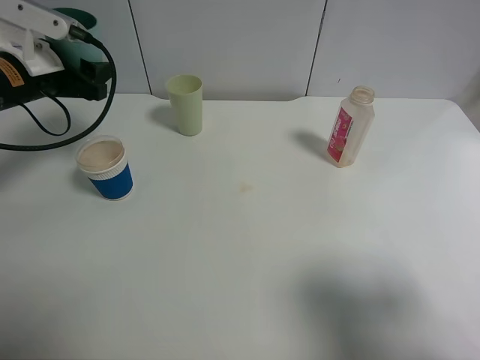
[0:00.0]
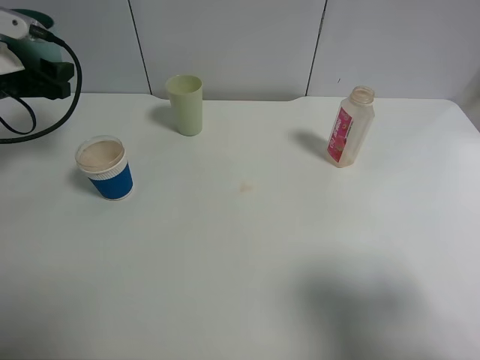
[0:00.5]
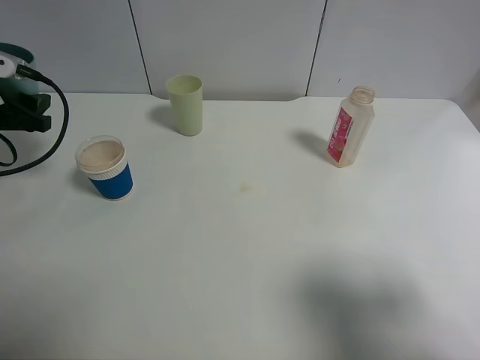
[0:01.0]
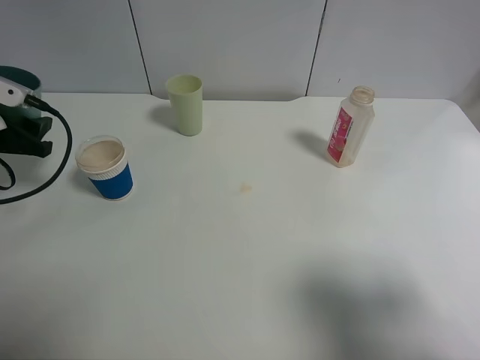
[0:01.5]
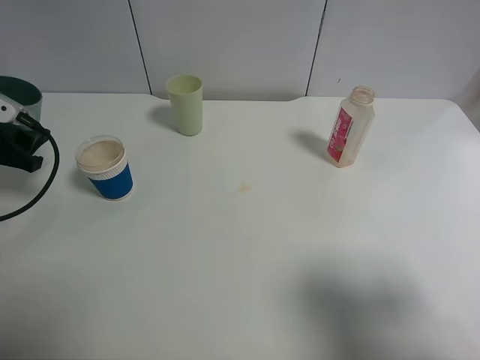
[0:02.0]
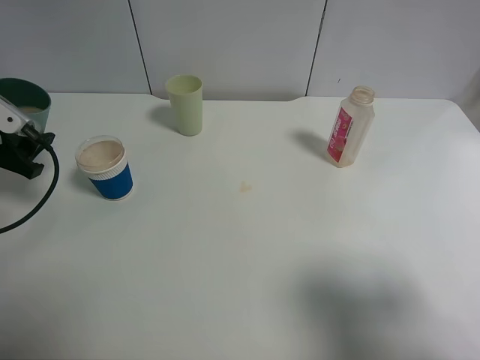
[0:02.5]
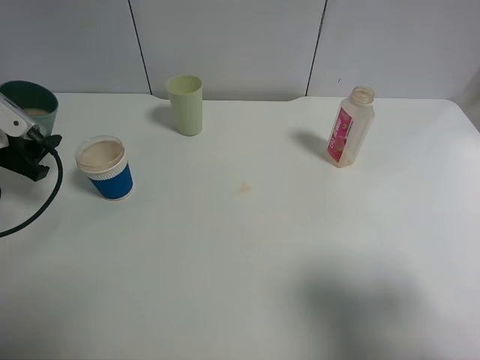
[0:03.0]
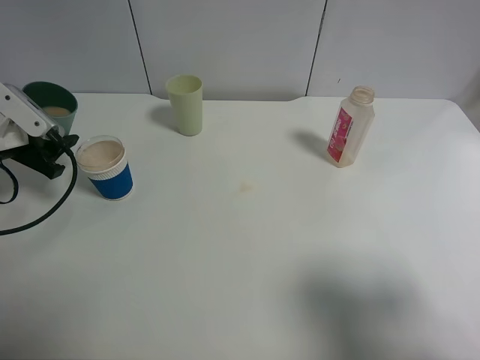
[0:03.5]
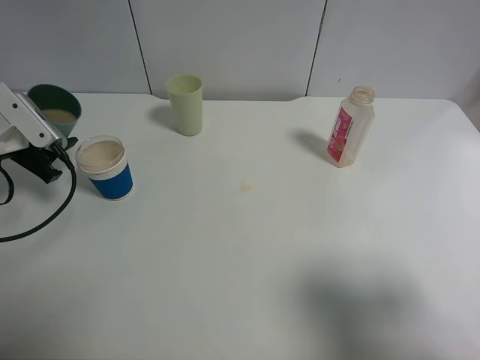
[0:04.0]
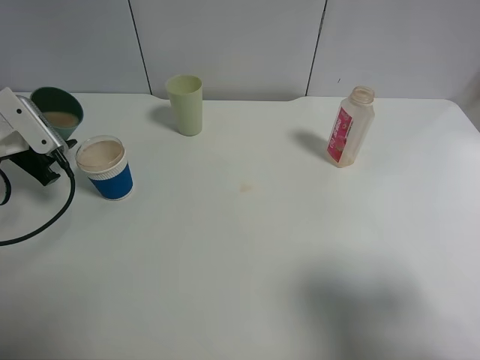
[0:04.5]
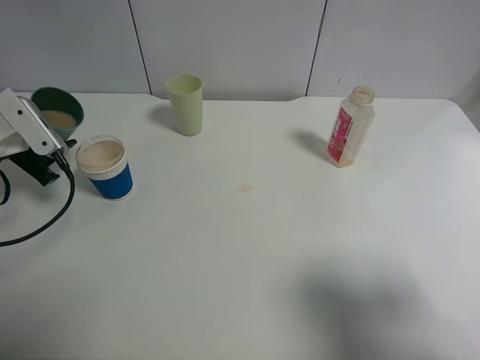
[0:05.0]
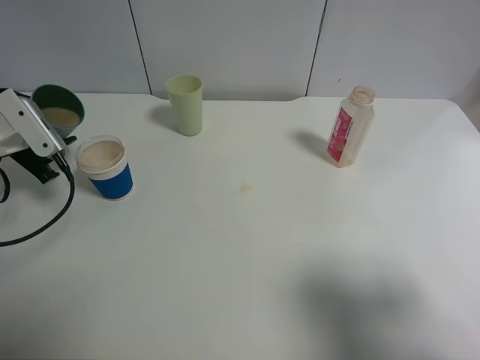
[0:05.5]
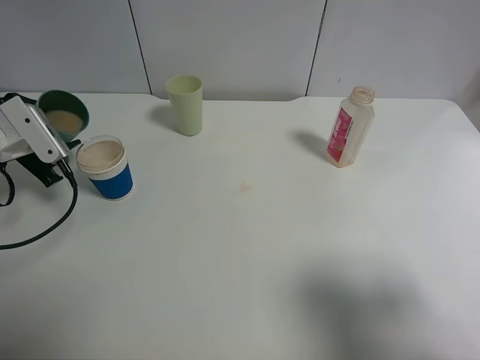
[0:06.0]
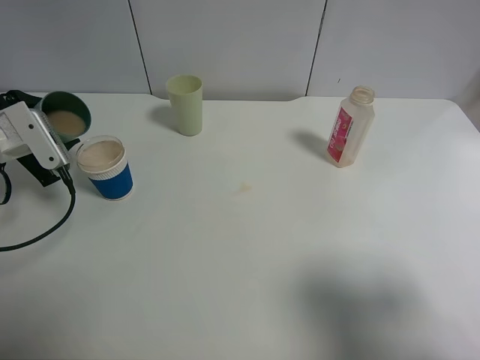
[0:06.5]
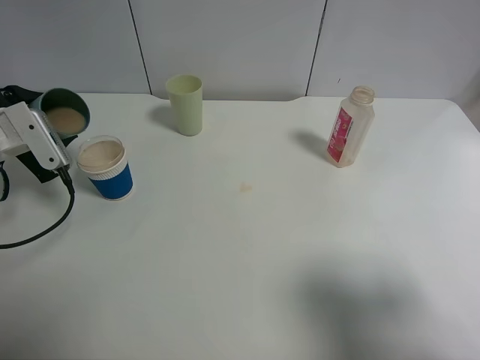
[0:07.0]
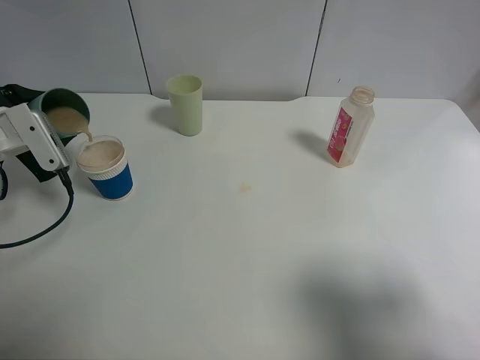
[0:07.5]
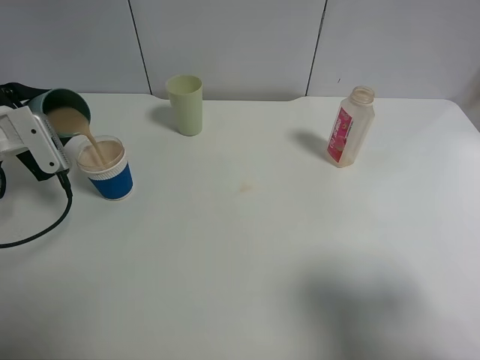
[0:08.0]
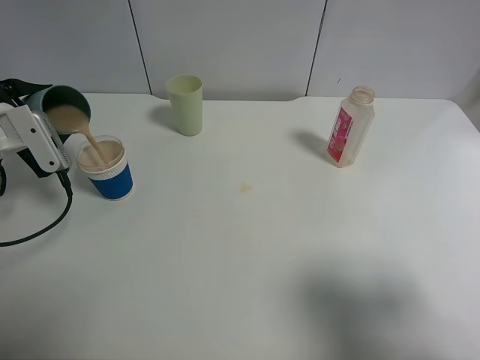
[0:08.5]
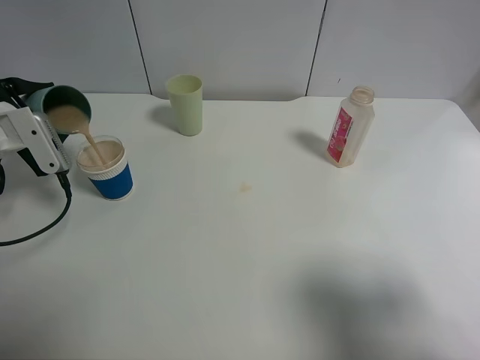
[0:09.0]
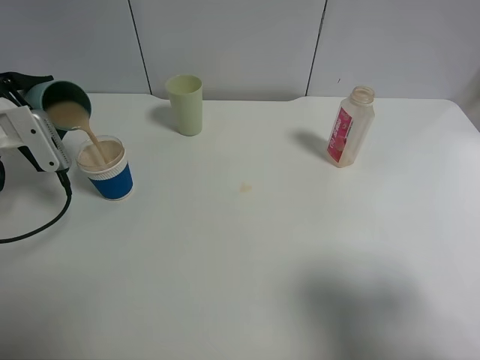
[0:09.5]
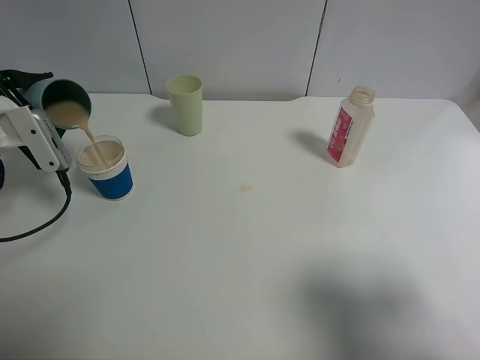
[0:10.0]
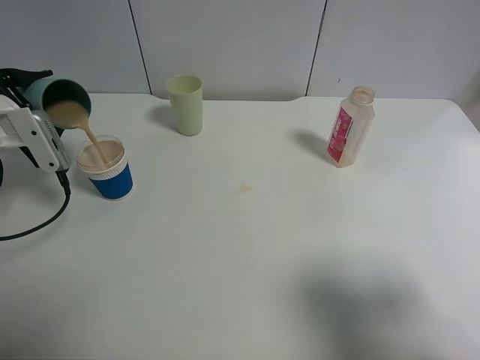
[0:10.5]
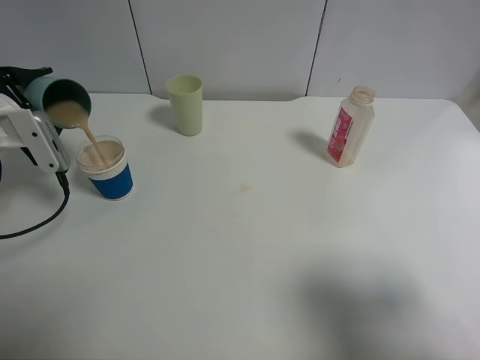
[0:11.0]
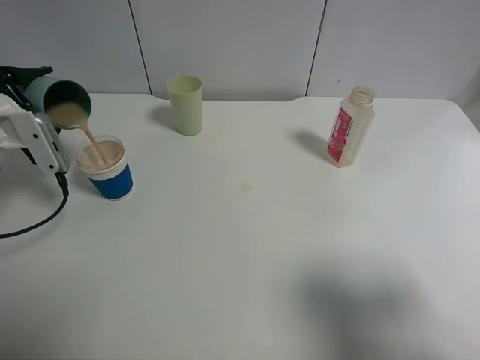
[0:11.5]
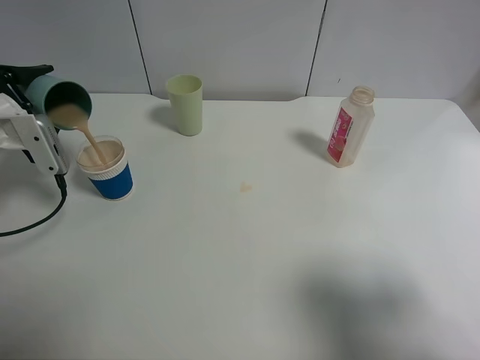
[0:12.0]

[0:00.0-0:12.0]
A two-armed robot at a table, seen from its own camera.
Task of the whole recording: use a clamp to hold the bottle of the drink, pour the beverage into a random cup, then clamp the cup containing the drink and pour the drink into another random cup.
0:00.0 to 0:02.0: The left gripper heads to the left and backward, covering some 10 cm.
0:02.0 to 0:04.0: There are only small adjustments of the grippers.
0:04.0 to 0:06.0: The grippers make only small movements.
0:06.0 to 0:08.0: The grippers make only small movements.
0:08.0 to 0:10.0: The grippers move only a little.
0:10.0 to 0:12.0: The grippers stay close to where they were, moving slightly.

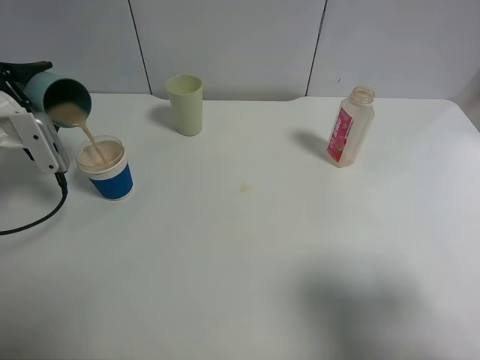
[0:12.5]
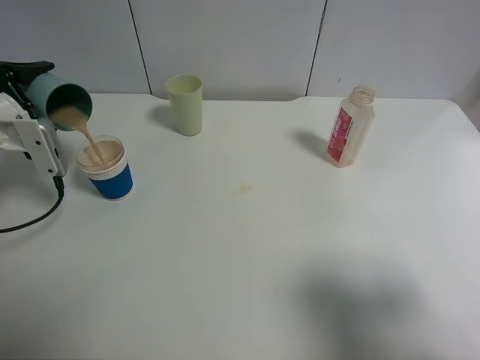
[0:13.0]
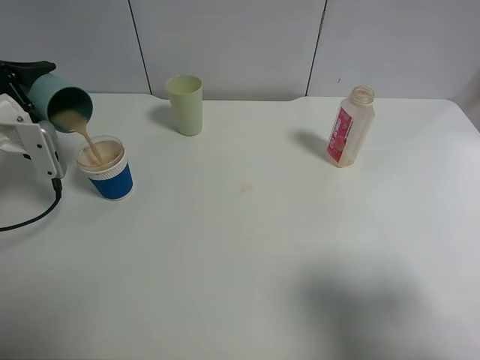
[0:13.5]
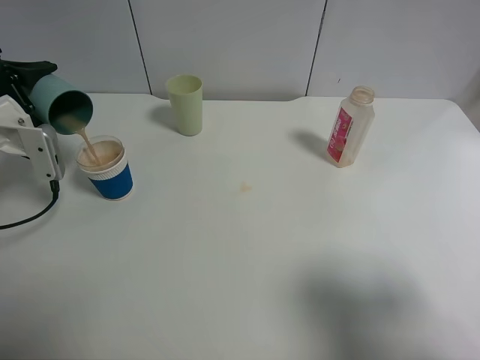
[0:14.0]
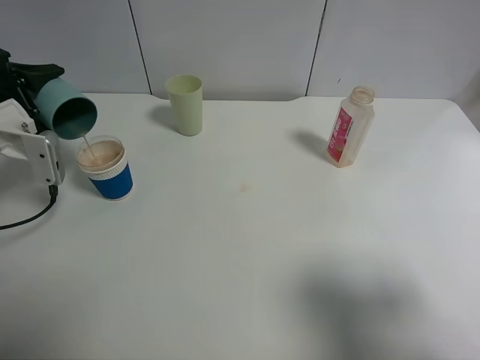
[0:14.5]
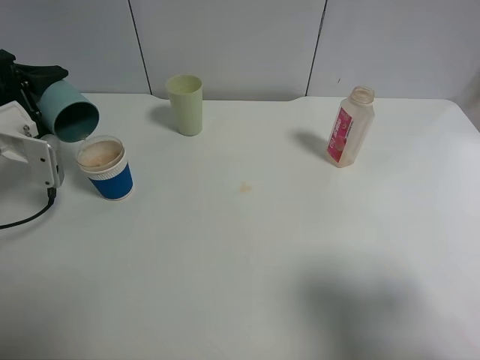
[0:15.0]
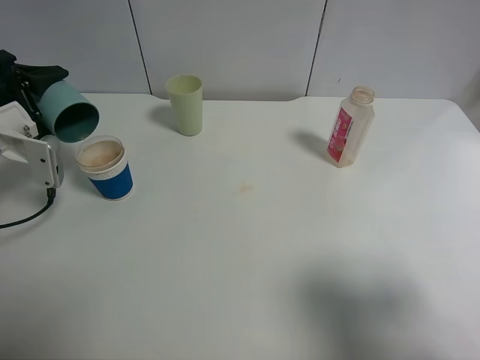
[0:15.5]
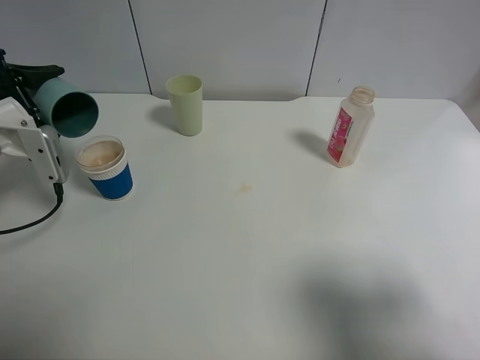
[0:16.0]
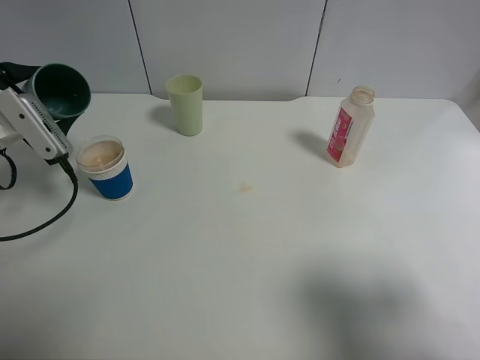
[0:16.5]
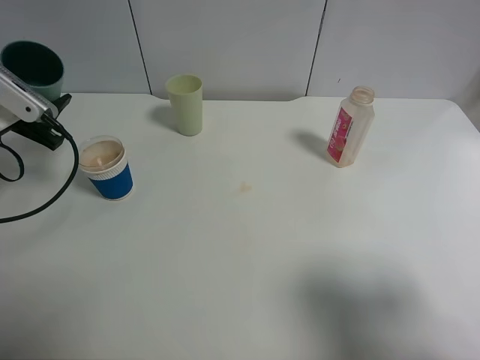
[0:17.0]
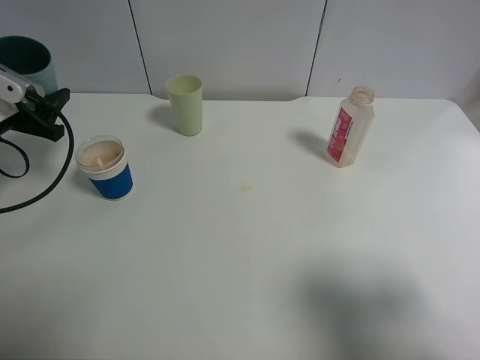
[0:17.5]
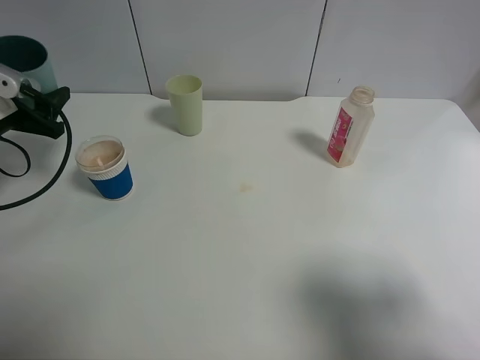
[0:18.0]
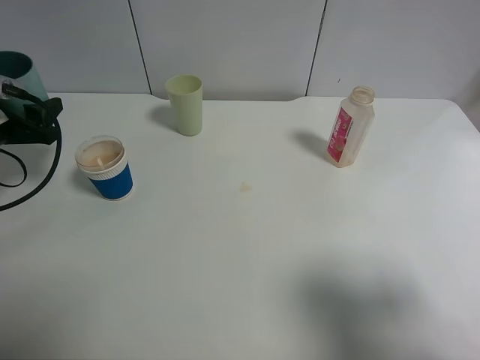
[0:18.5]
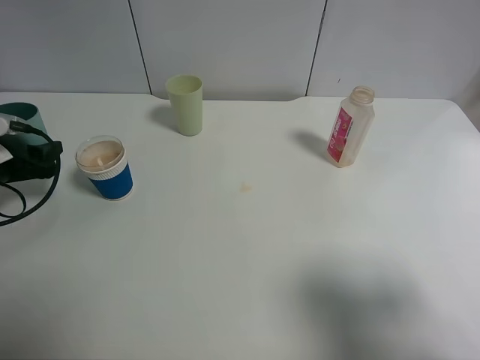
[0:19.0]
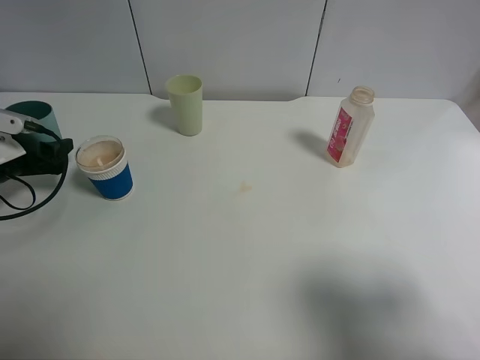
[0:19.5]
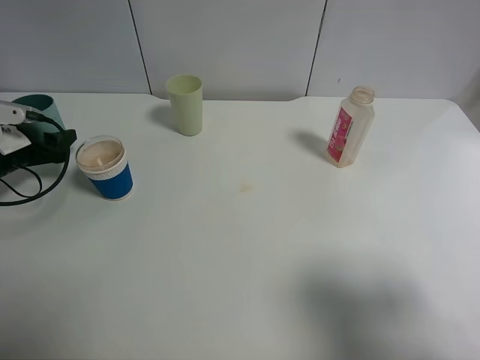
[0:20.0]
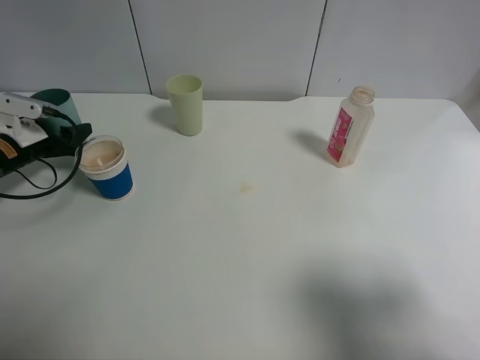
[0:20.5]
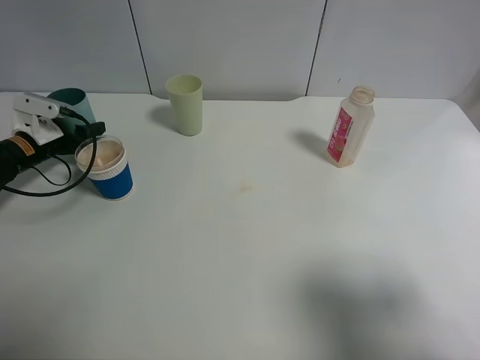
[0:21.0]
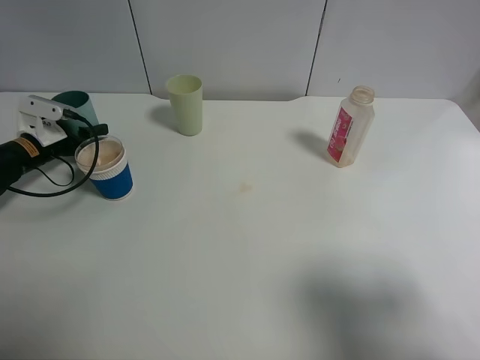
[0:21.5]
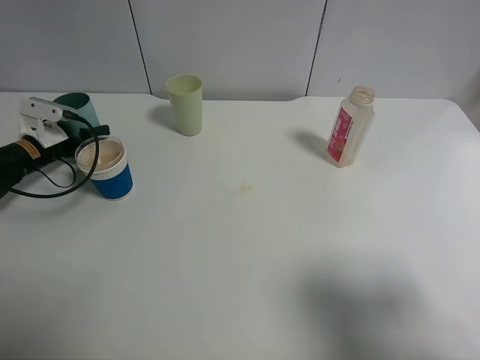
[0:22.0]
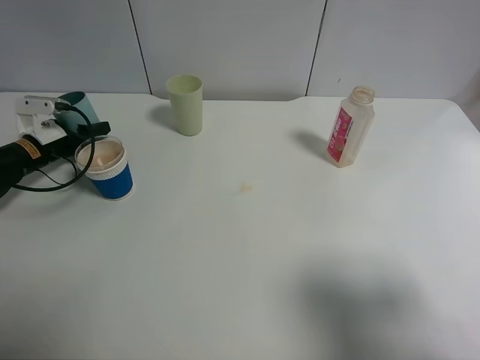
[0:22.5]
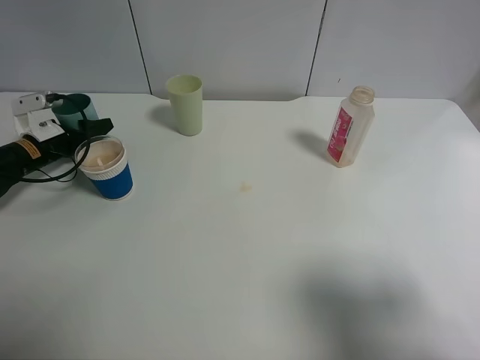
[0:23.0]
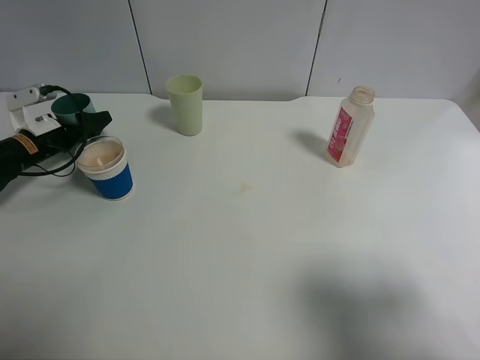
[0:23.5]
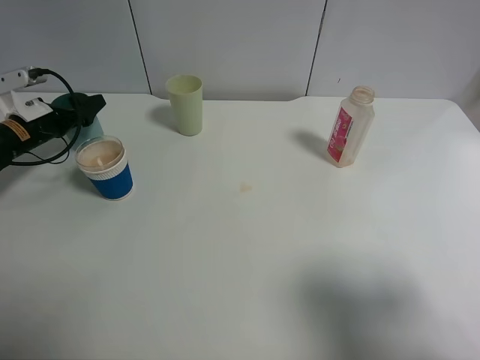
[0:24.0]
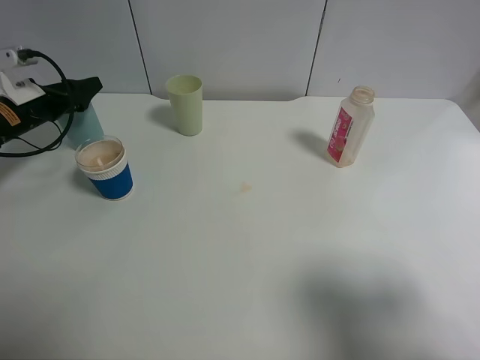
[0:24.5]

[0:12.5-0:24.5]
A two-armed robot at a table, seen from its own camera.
Task of the whole recording: use a clamp to hold the bottle of the drink, pour the beverage into a random cup, then clamp the cup containing the drink and pour the drink into another random cup.
Step, 0:12.5 to 0:16.5: Pour the drink into the paper cup with left gripper.
Step, 0:17.0 to 0:24.5: Place the blue plastic cup on the table with left gripper.
0:12.5 to 0:14.5: The grippers make only small movements.
0:18.5 to 0:20.5: The left gripper moves downward and forward, some 10 cm.
0:20.5 to 0:22.5: There are only small adjustments of the grippers.
0:22.5 to 0:24.5: The left gripper goes roughly 5 cm upward, and opens its fingers.

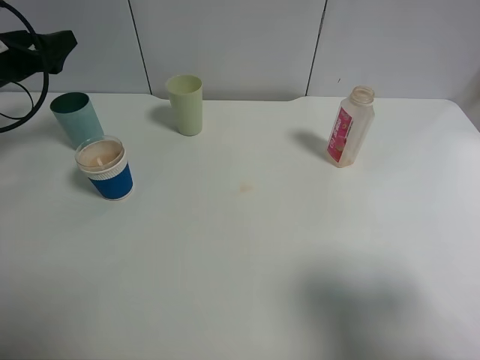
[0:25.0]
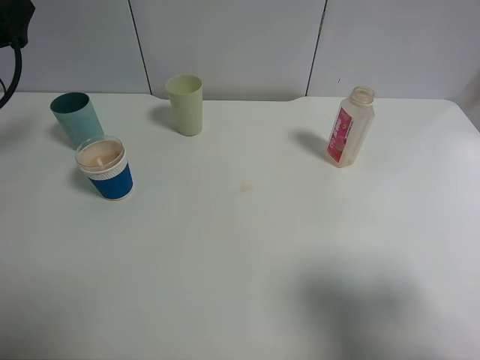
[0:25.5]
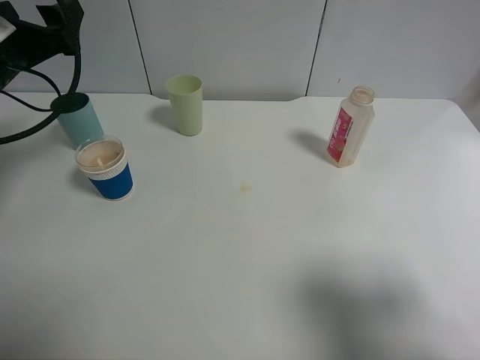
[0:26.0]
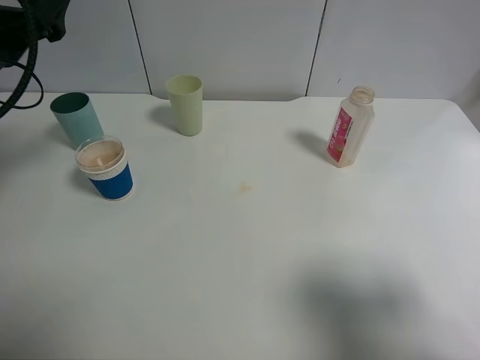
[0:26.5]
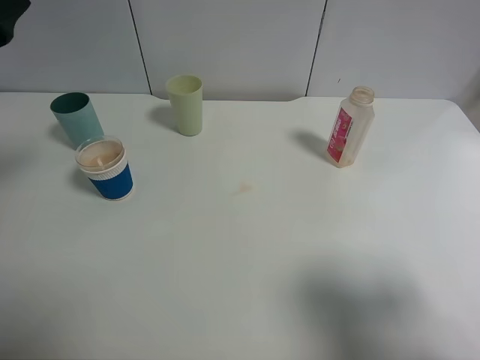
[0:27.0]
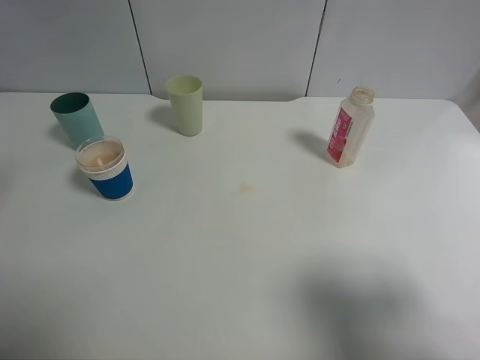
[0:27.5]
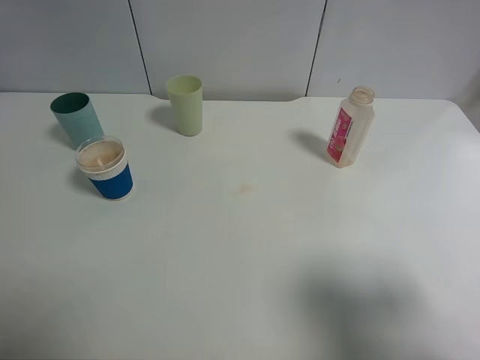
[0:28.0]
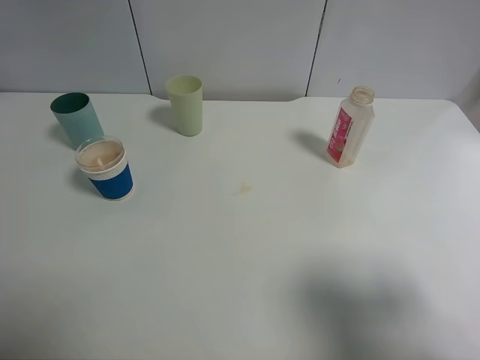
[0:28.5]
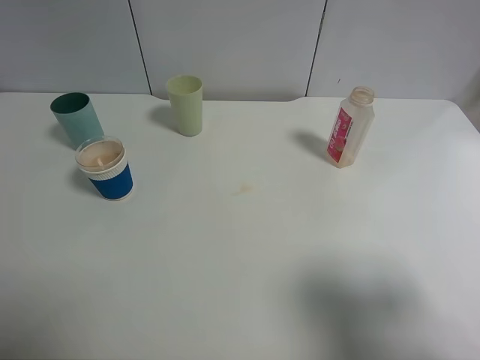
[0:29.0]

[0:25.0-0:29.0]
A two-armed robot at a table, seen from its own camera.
Task of the whole recording: use a clamp to hold the bottle of the drink, pour the beverage into a random cup, then clamp the cup containing the drink and pour the drink into another random cup.
0:25.0 to 0:27.0: The left gripper travels backward, upward and to the right by about 20 cm.
0:27.0 to 0:29.0: The left gripper travels backward by about 20 cm.
